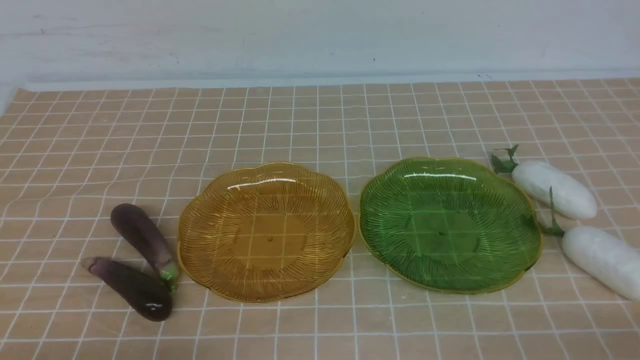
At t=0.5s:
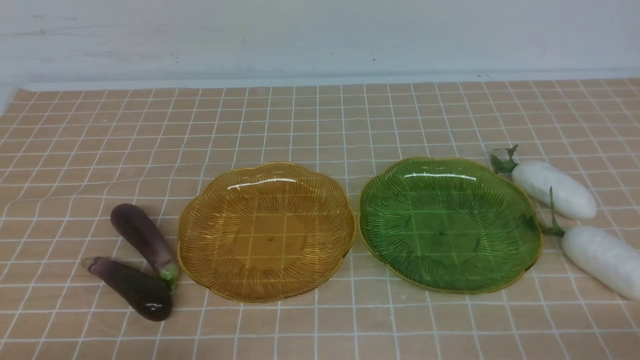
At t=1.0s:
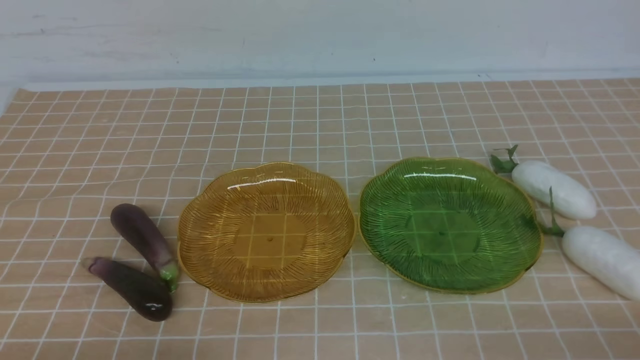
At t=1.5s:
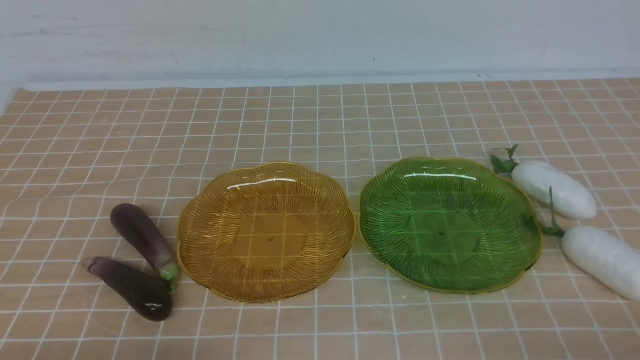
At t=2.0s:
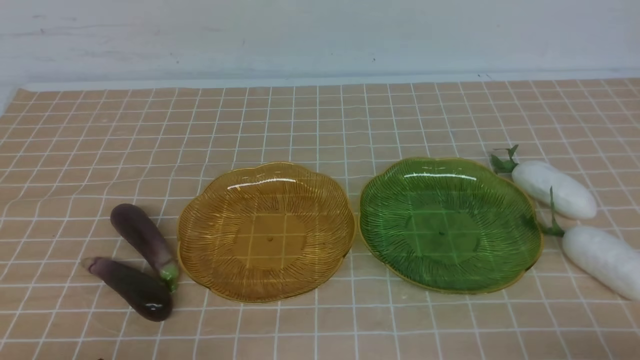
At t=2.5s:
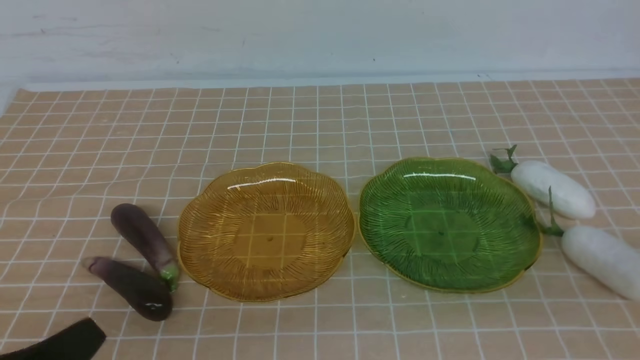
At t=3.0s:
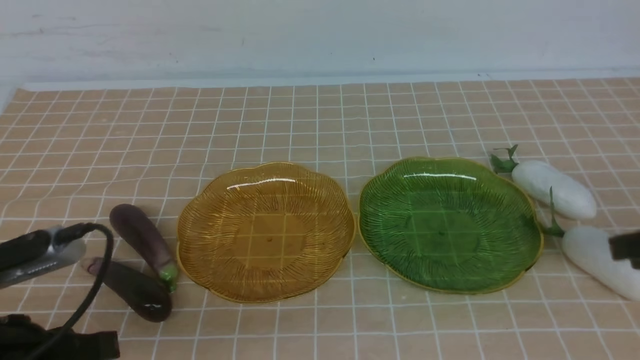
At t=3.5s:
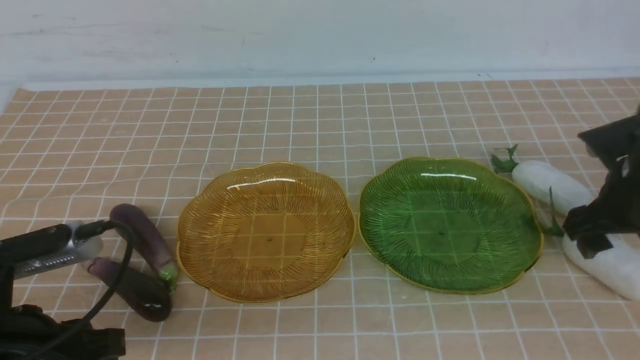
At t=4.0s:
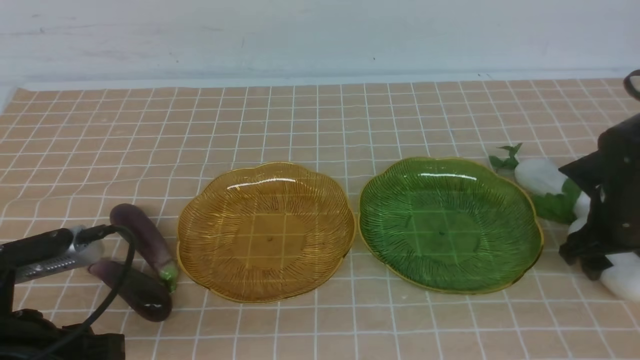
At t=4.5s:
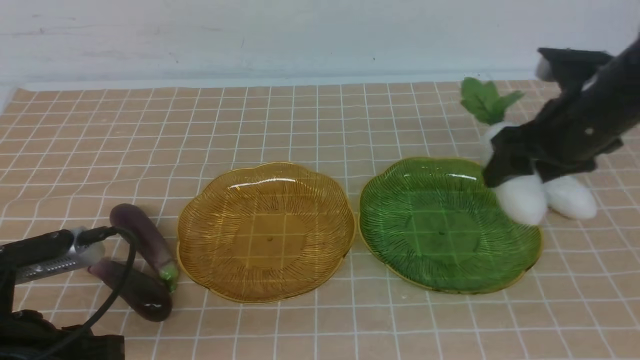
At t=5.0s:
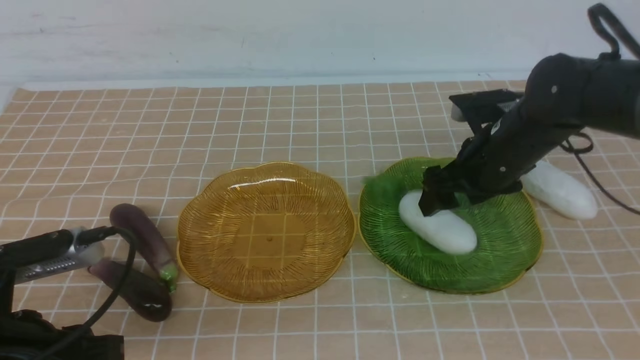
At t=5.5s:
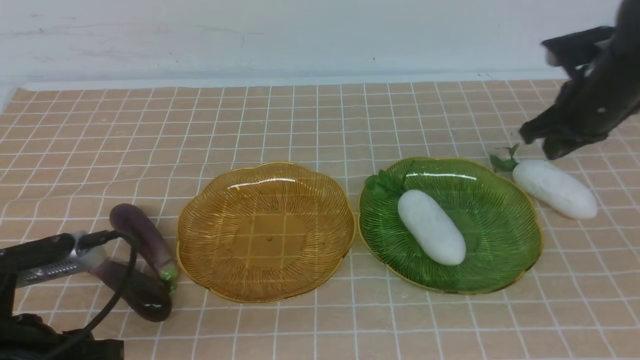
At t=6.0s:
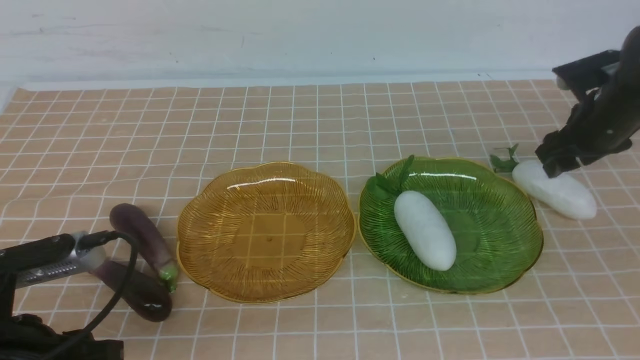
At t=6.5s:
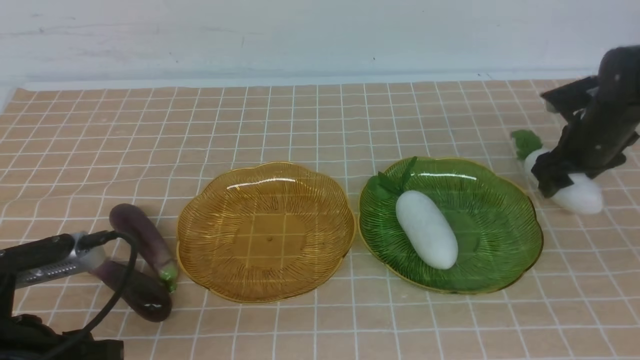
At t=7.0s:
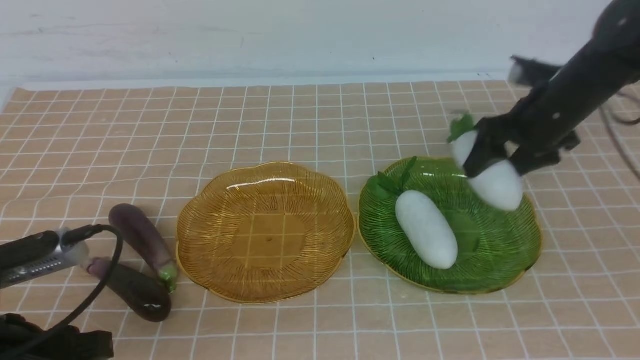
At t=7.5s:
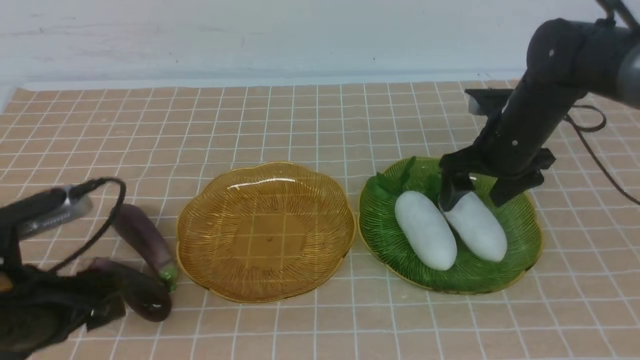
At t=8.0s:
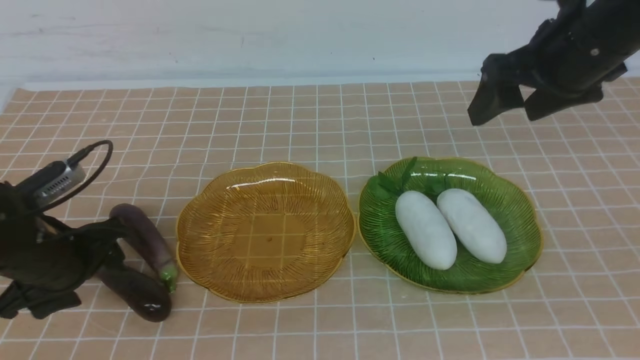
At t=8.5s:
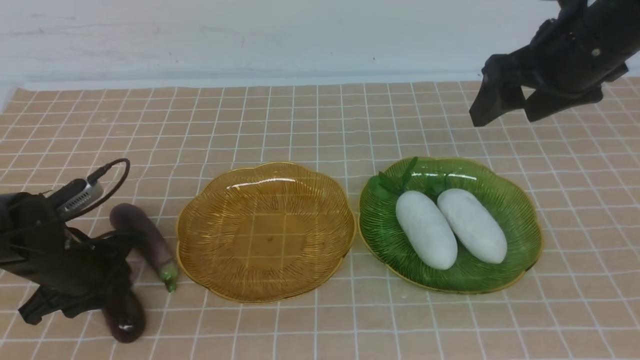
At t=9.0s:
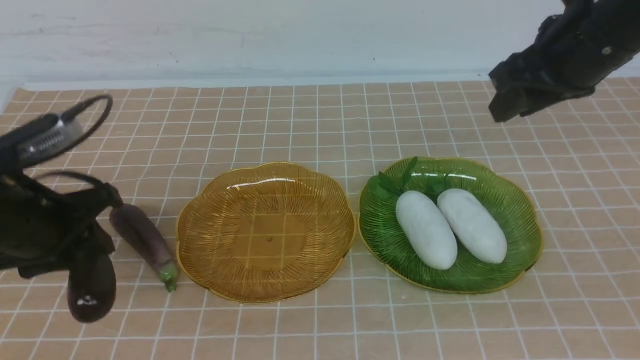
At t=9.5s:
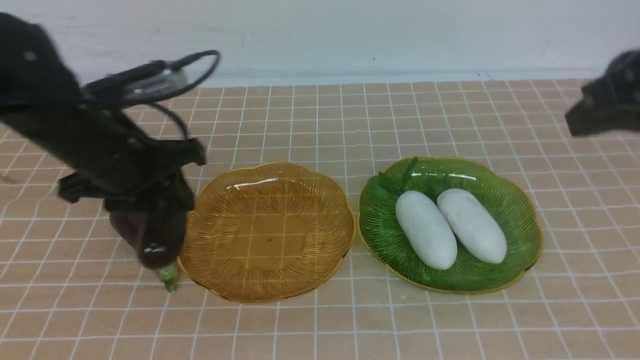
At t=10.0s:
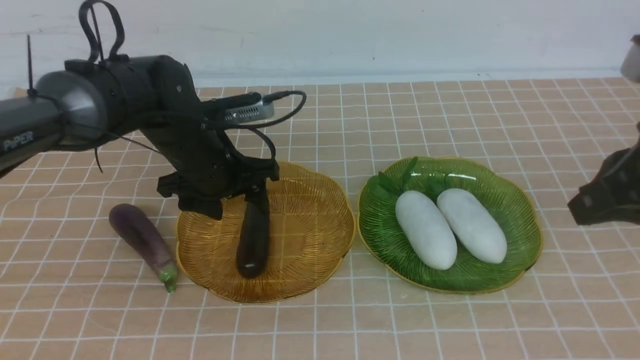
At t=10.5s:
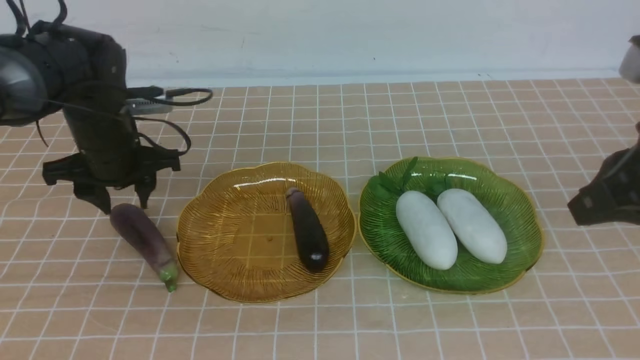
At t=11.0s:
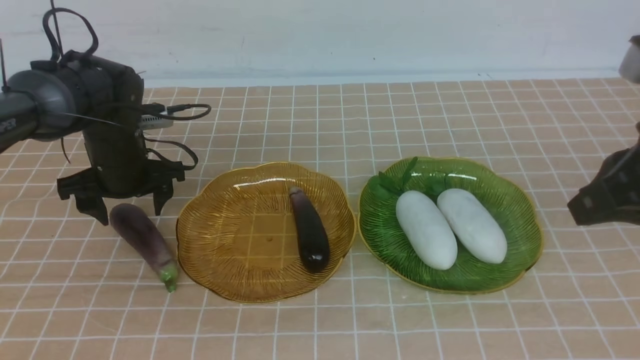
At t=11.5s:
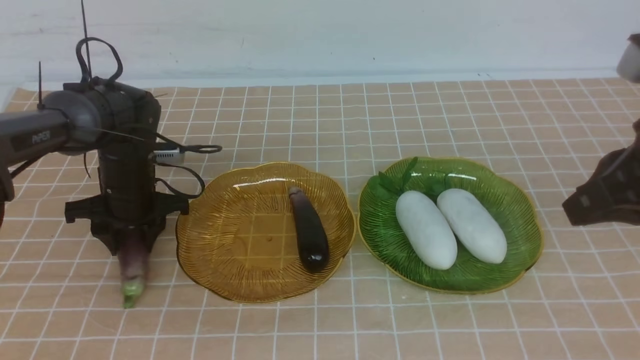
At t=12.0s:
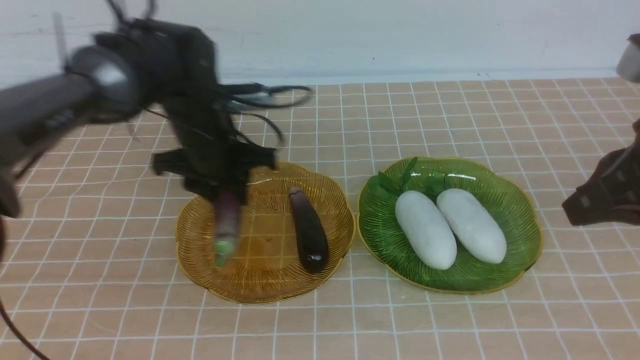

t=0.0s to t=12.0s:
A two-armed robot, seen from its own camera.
Step, t=0.0s to t=7.5s: use the right arm to grab a radish and put it into the right plate.
t=2.0s to t=4.0s: The left gripper moves forward and upward, roughly 10 cm, and opens up. The right gripper travels forward by roughly 30 cm, and opens.
t=4.0s to t=6.0s: The right gripper travels forward by some 10 cm, and reaches about 10 cm to the left, then returns.
t=6.0s to t=8.0s: The right gripper is displaced upward, to the left and backward by roughly 25 cm; the left gripper is displaced forward by approximately 15 cm, and opens, then closes again.
t=8.0s to t=10.0s: The right gripper goes approximately 15 cm backward, and closes. Meanwhile the left gripper is displaced forward by some 15 cm.
t=10.0s to t=12.0s: The left gripper goes roughly 15 cm to the right, and closes. Meanwhile the right gripper heads backward, covering about 20 cm.

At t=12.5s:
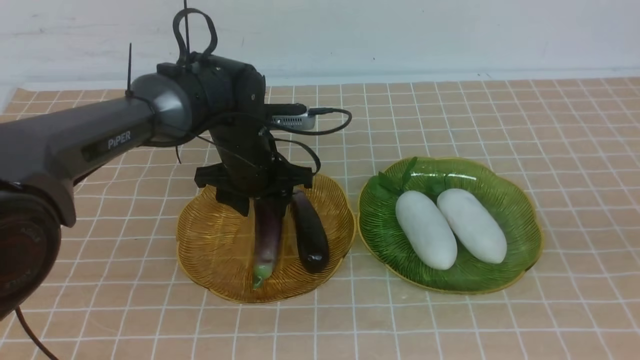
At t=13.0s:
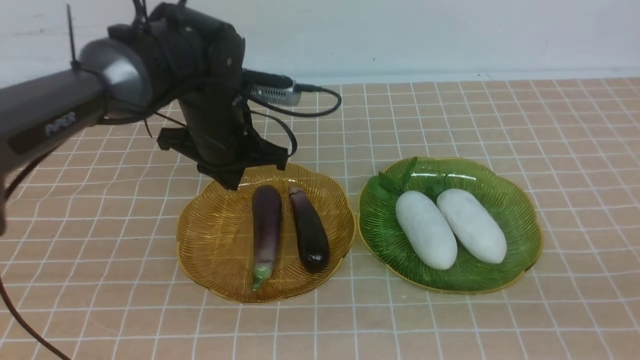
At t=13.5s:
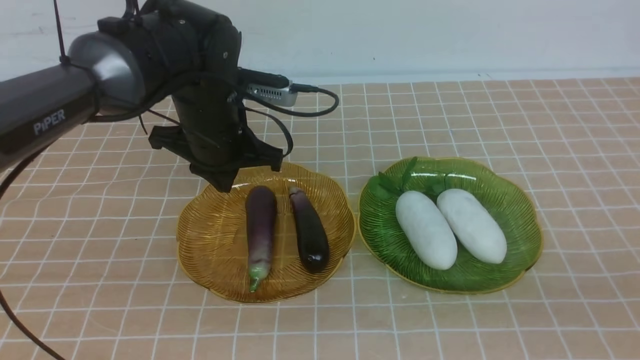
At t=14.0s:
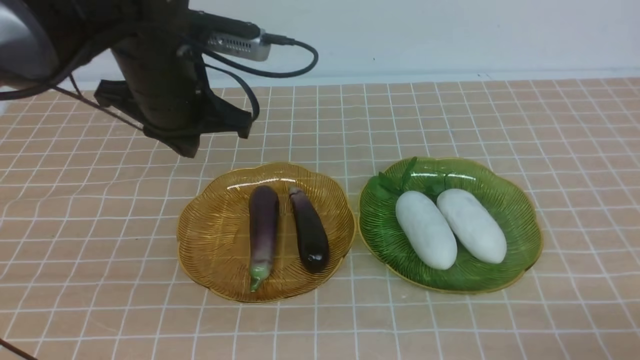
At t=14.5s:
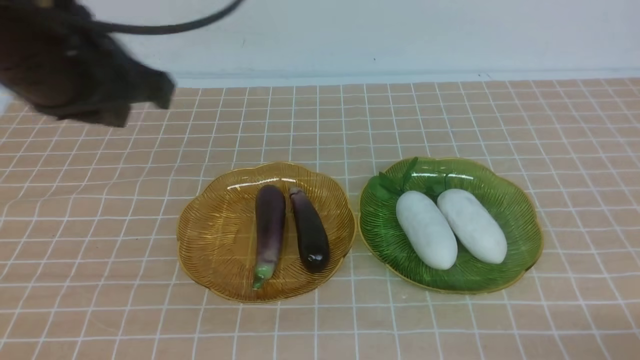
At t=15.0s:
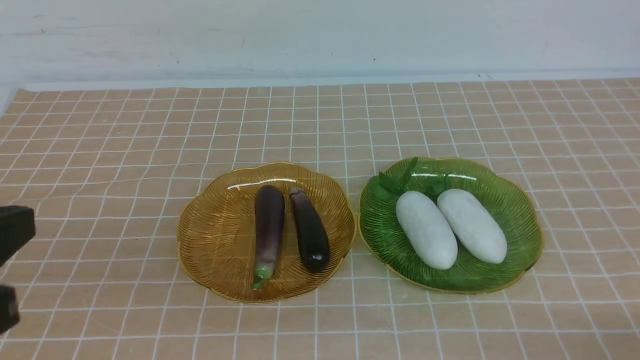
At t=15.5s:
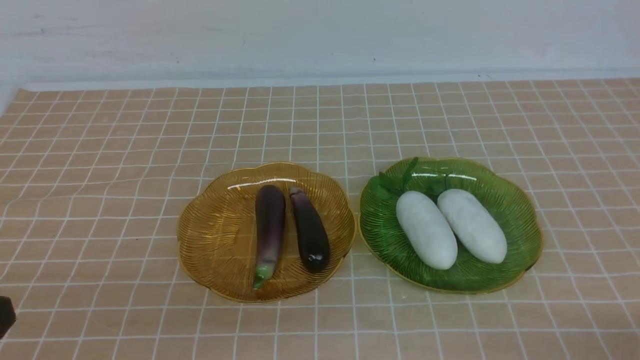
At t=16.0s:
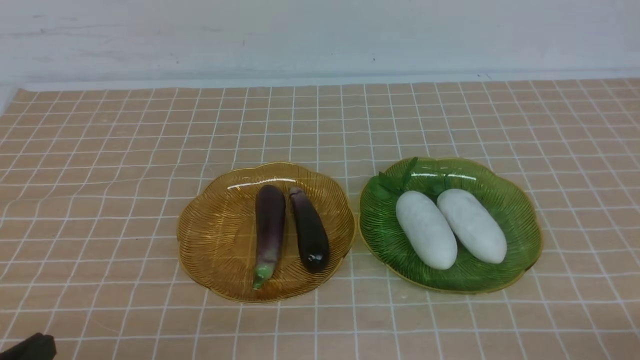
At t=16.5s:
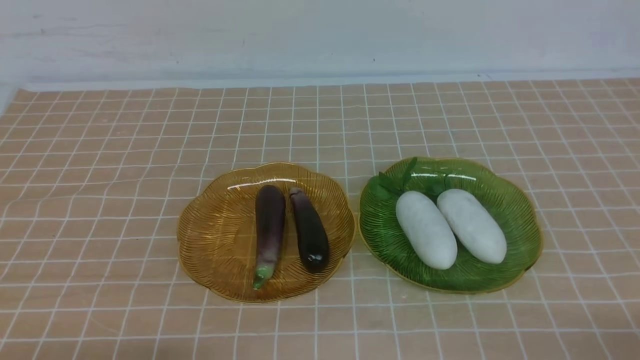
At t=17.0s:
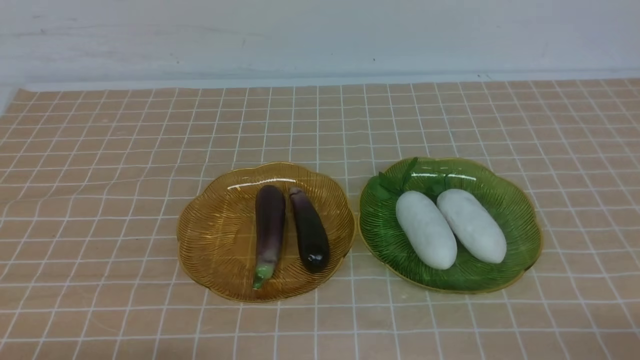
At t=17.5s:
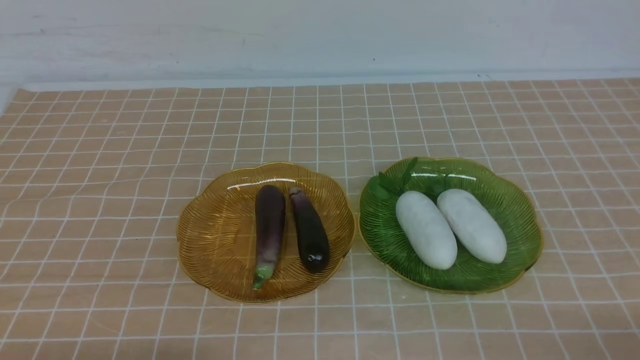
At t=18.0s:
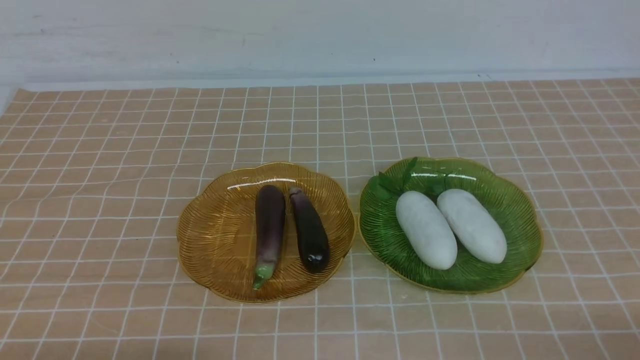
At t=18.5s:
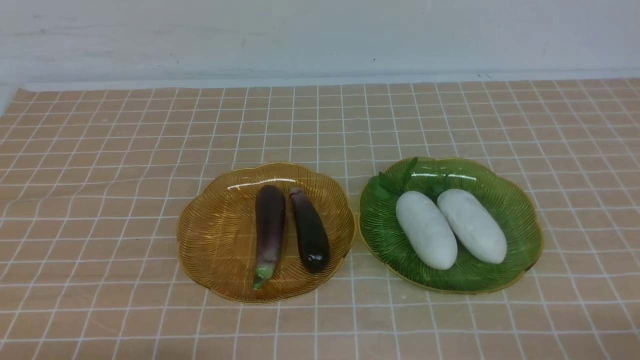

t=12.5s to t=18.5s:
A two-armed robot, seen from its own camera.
t=12.5s to t=14.5s: The left gripper goes about 30 cm backward, upward and to the left, while the right gripper is displaced downward by roughly 10 cm.
t=14.5s to t=16.5s: The left gripper shifts approximately 20 cm downward.
t=16.5s to t=18.5s: Neither gripper changes place.

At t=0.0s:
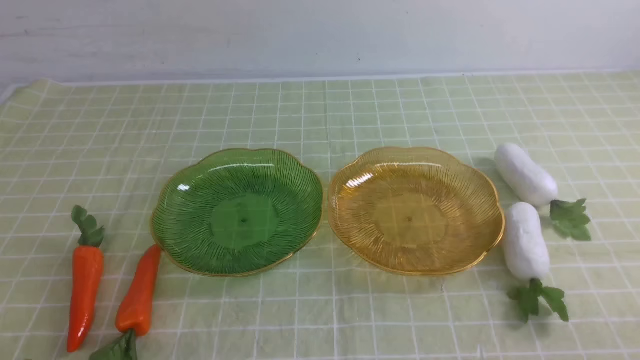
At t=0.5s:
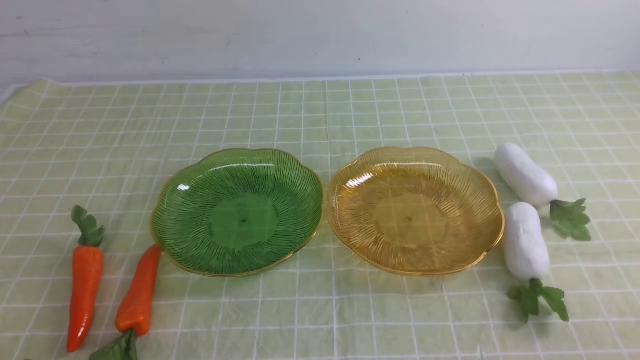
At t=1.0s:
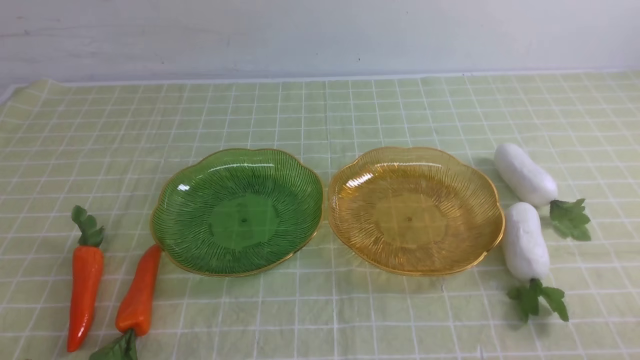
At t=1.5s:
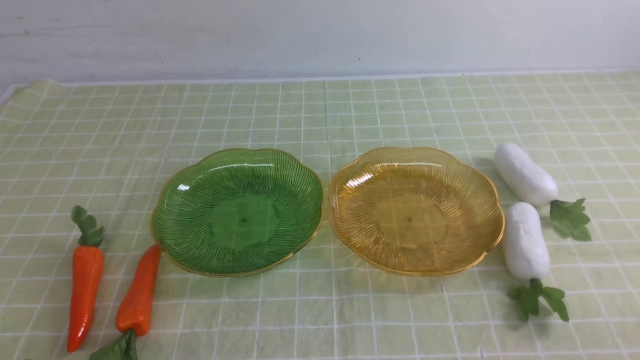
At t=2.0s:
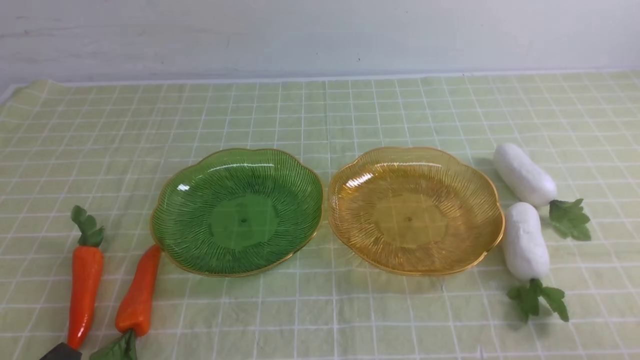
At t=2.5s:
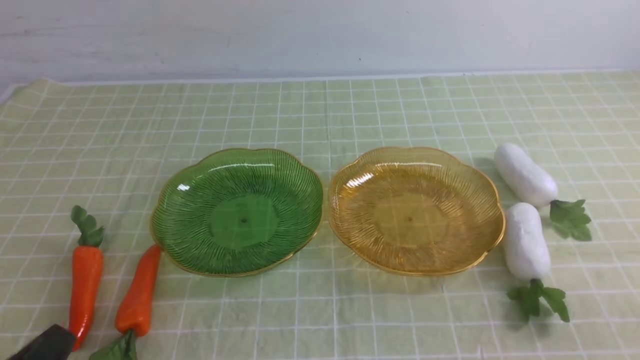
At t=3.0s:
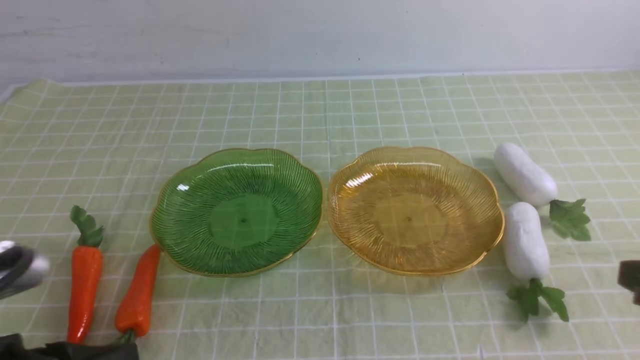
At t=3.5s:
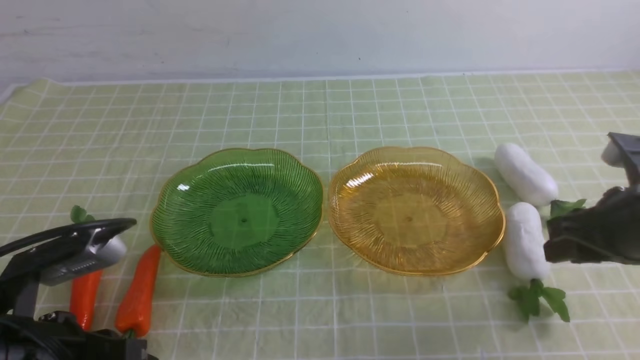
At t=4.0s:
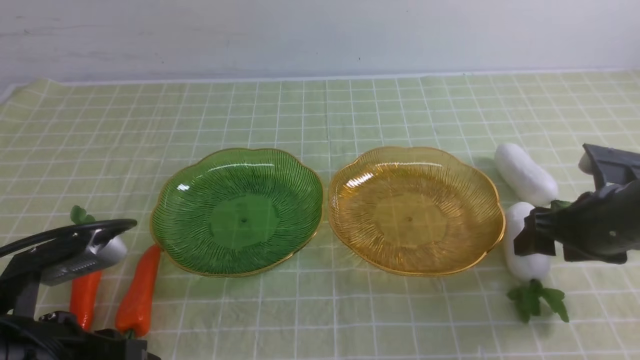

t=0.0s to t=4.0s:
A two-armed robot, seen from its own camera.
t=2.0s to t=4.0s: The left gripper moves forward and upward, approximately 10 cm; the right gripper moves forward, roughly 25 cm, and opens.
